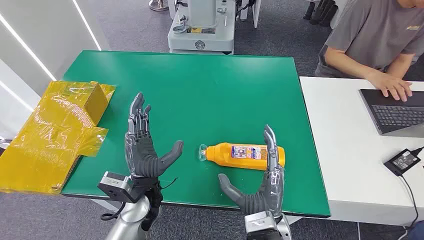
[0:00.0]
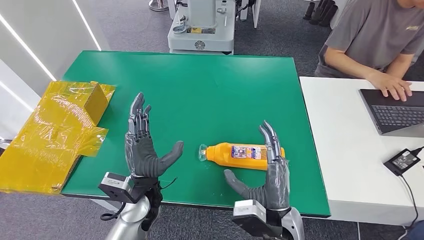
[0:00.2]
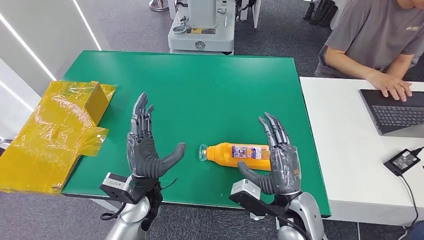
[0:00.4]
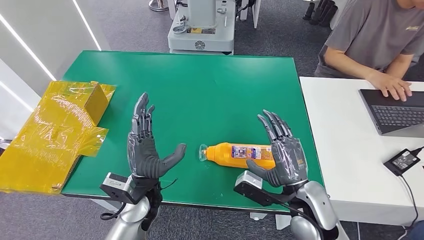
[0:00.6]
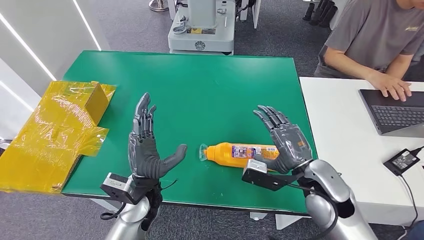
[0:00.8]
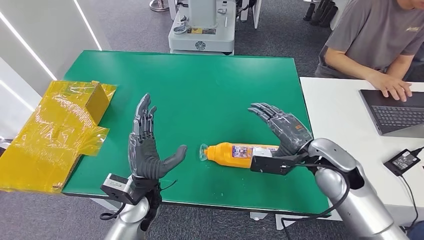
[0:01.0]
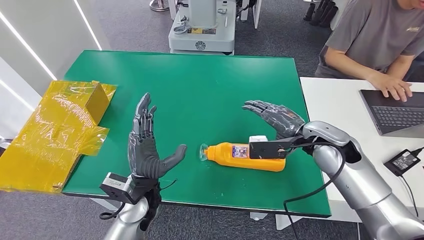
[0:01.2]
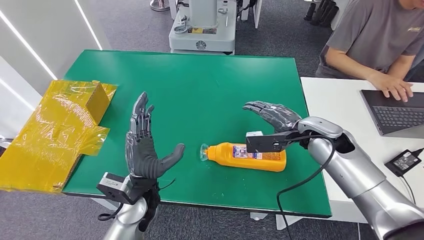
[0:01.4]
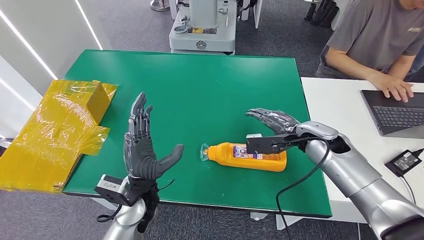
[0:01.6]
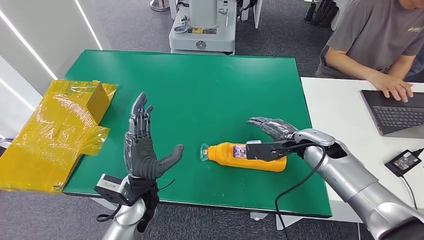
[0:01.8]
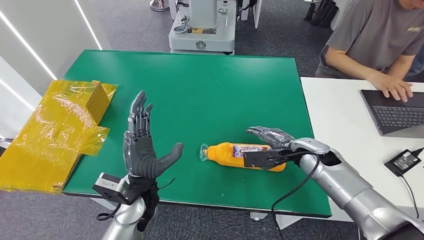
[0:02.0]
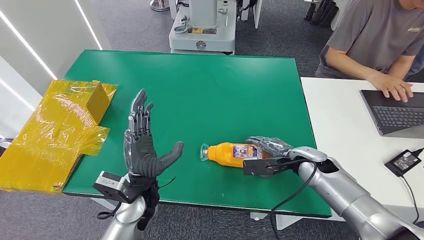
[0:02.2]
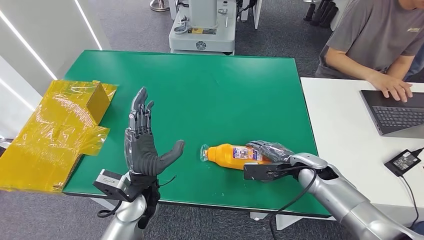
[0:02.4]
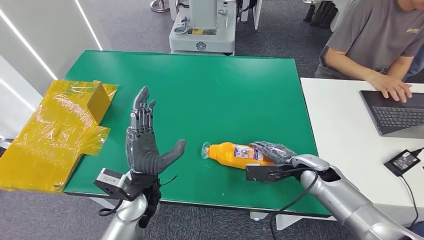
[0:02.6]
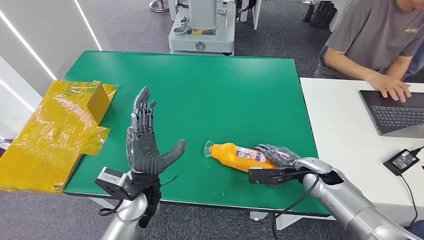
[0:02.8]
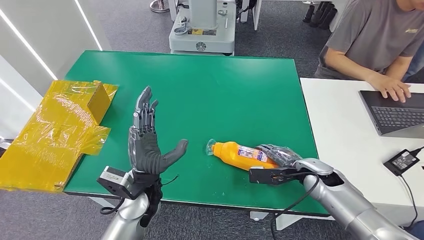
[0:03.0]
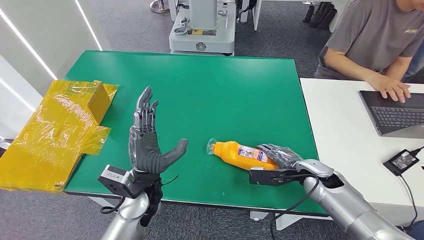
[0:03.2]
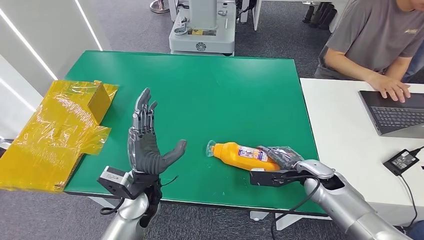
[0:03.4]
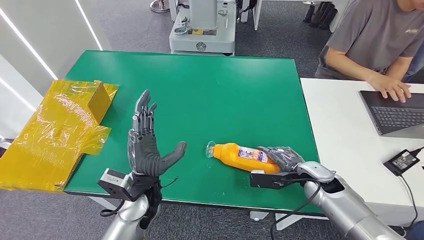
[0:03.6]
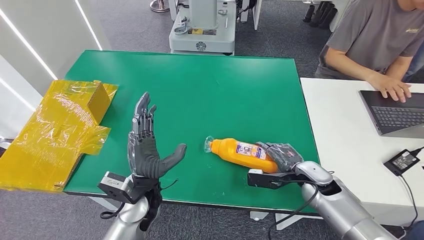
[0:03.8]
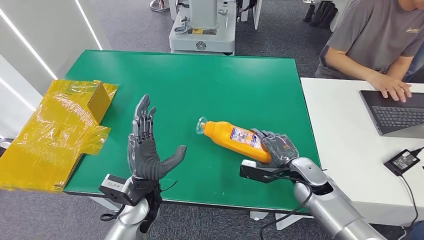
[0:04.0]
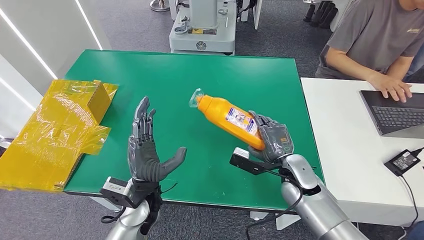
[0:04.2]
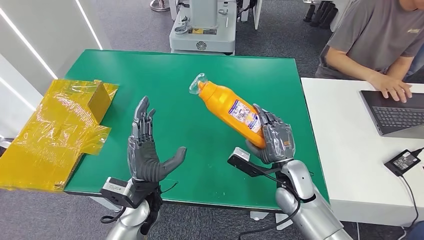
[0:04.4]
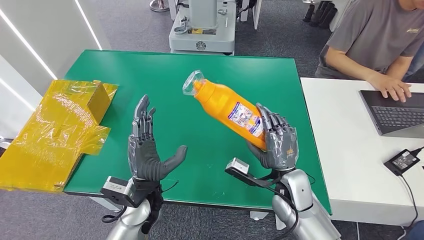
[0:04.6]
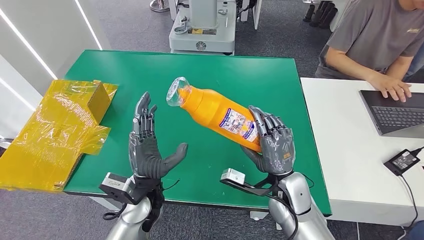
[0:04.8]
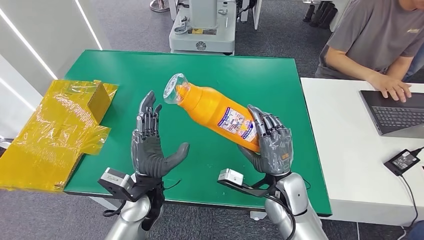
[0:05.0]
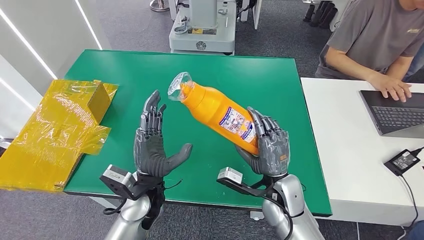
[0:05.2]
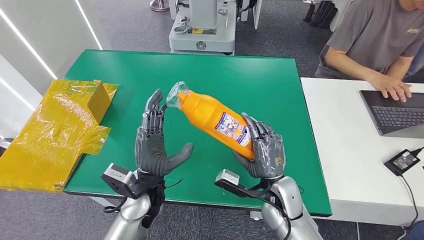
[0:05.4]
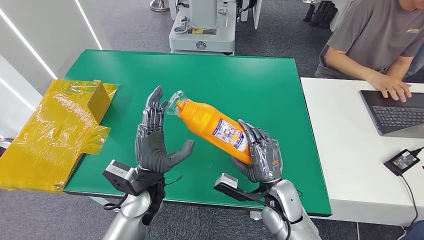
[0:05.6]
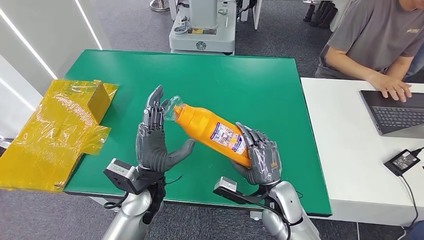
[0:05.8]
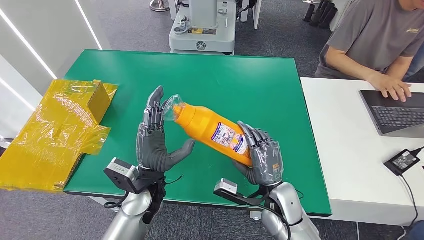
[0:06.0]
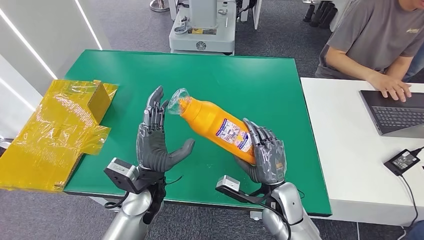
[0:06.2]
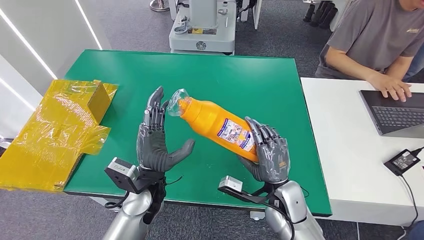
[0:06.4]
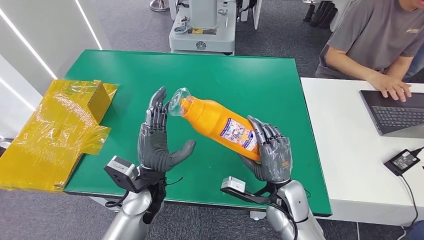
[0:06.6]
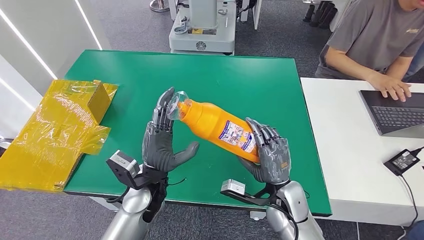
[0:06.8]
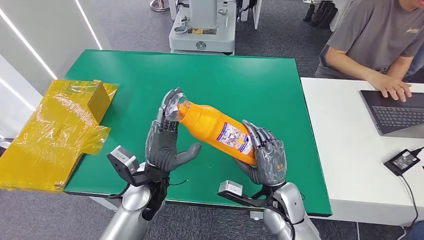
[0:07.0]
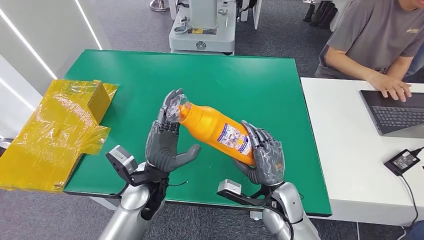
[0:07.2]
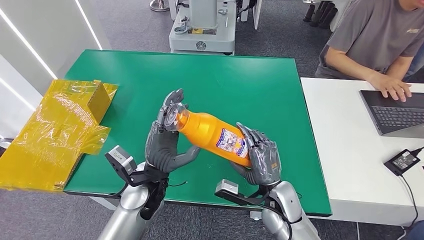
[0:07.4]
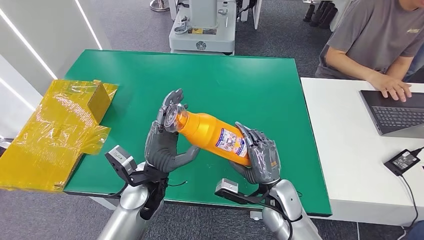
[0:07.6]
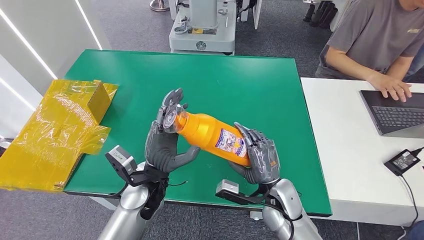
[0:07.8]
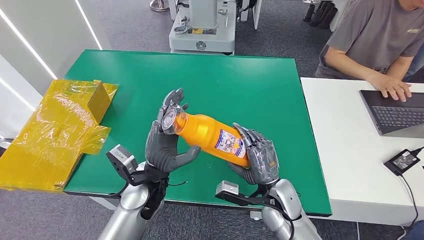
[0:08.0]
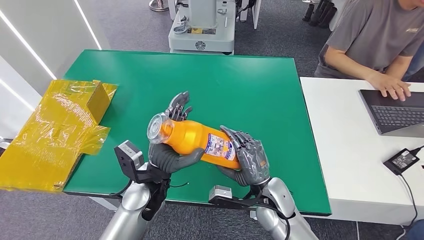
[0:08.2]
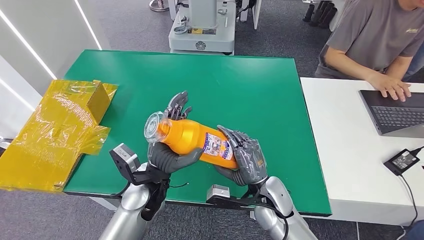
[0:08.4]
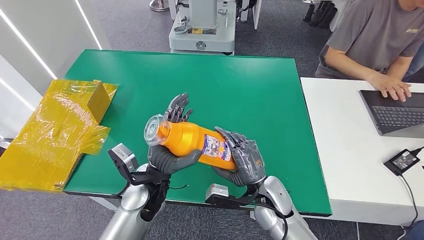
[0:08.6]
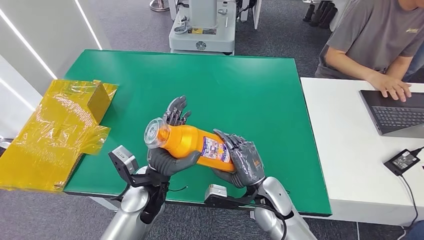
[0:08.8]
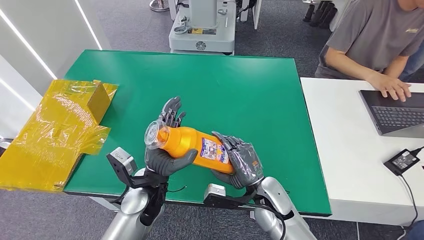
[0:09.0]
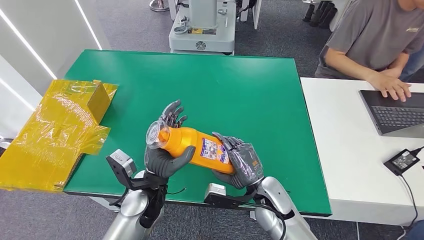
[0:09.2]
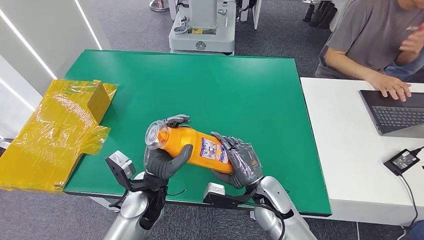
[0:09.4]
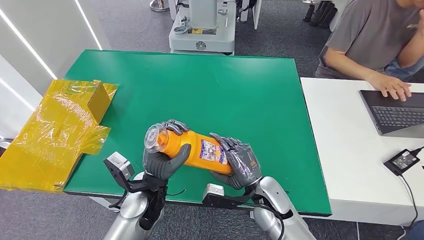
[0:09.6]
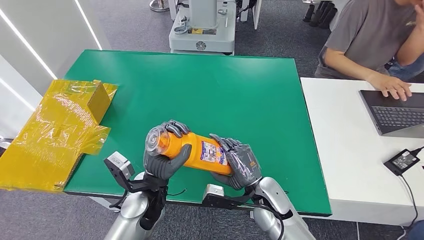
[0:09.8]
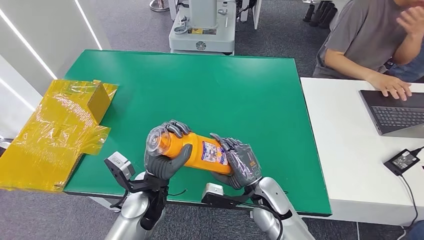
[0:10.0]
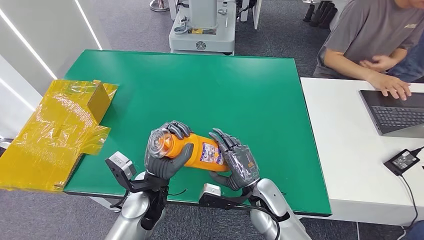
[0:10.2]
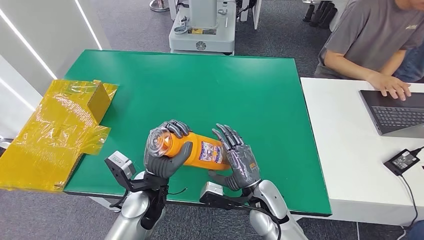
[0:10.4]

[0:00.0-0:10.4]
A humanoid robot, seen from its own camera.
Step, 0:00.0 to 0:05.2: Pick up the bottle from the table.
0:01.4 to 0:03.0: The right hand moves downward and backward, roughly 15 cm.
0:03.0 to 0:04.4: The right hand goes roughly 10 cm to the left.
0:04.4 to 0:06.0: The right hand heads backward, covering roughly 5 cm.
0:06.0 to 0:07.4: The hands make only small movements.
0:07.4 to 0:10.4: The hands move only a little.

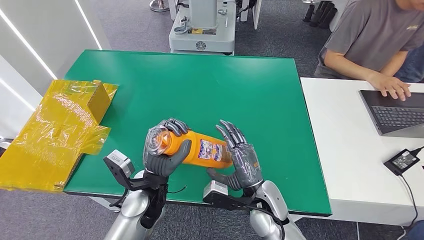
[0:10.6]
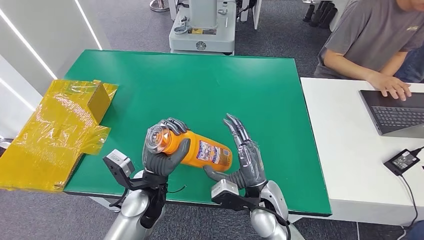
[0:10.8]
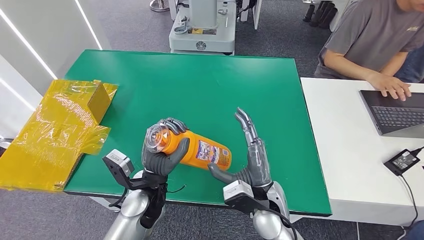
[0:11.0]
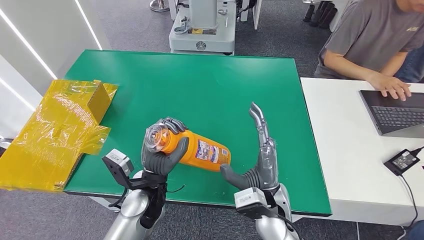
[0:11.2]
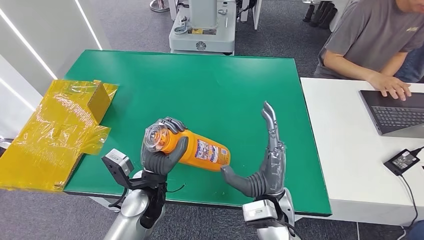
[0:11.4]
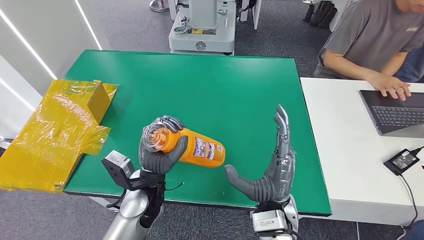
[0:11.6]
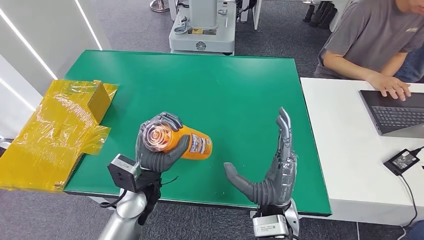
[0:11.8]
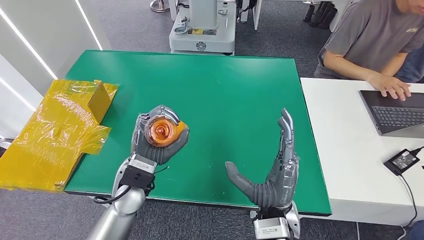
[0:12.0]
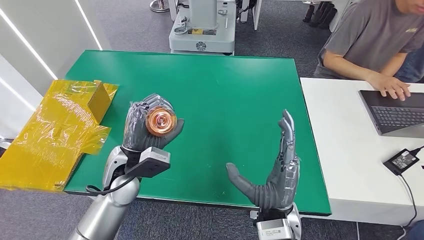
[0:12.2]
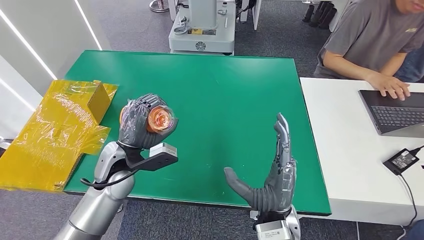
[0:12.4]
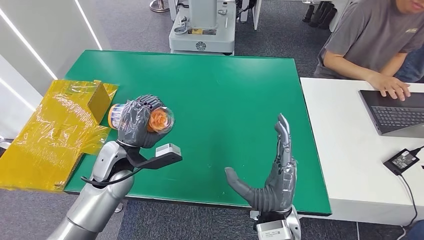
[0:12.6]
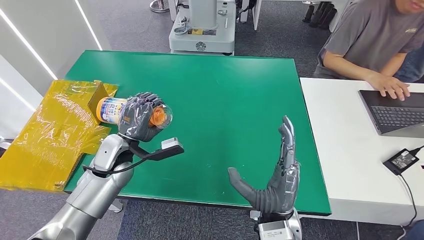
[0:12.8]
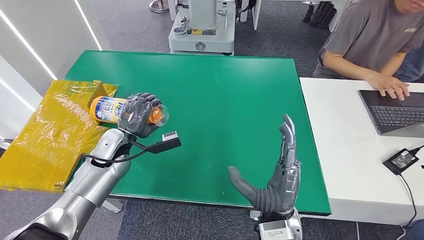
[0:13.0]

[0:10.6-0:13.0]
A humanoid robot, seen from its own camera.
Step, 0:10.6 to 0:13.0: Turn the bottle to the front side.
0:10.6 to 0:11.8: The right hand is displaced upward by roughly 5 cm.
0:11.8 to 0:13.0: The left hand heads to the left and forward, covering roughly 15 cm.
